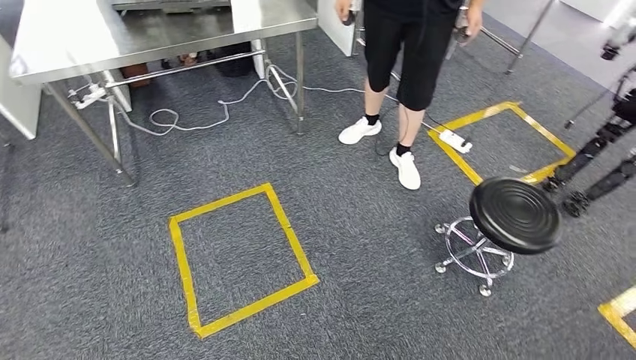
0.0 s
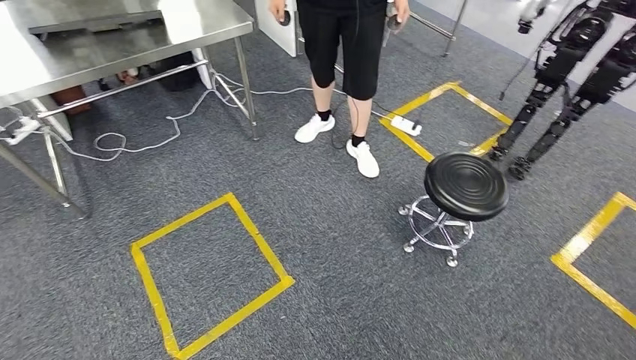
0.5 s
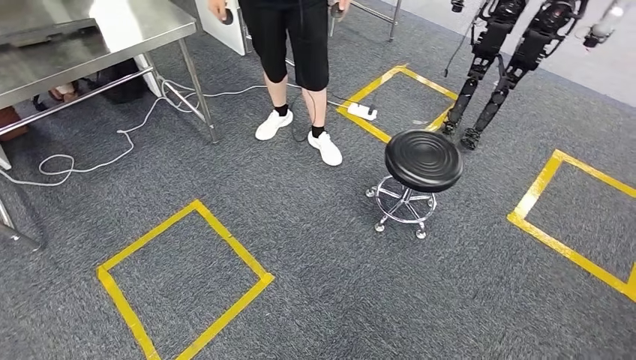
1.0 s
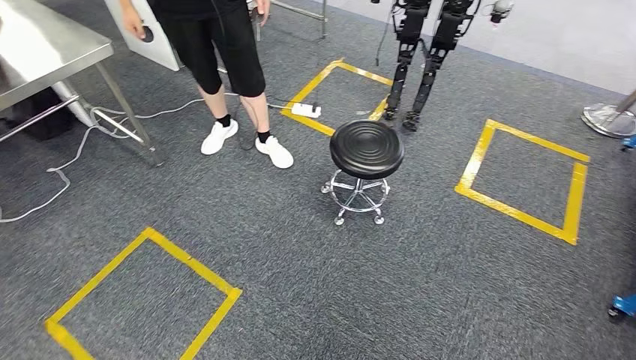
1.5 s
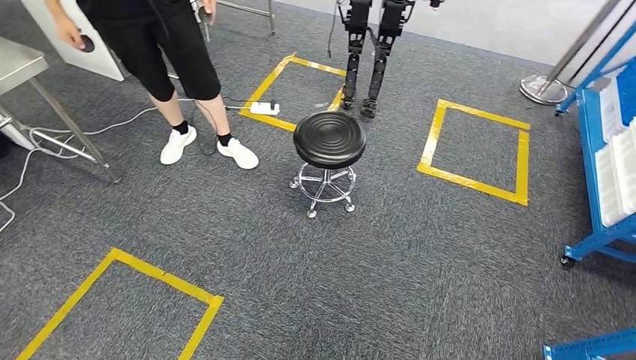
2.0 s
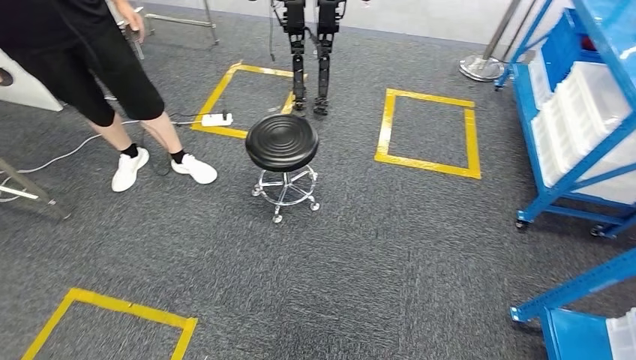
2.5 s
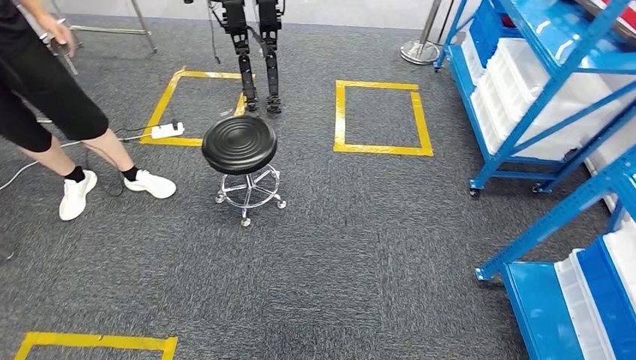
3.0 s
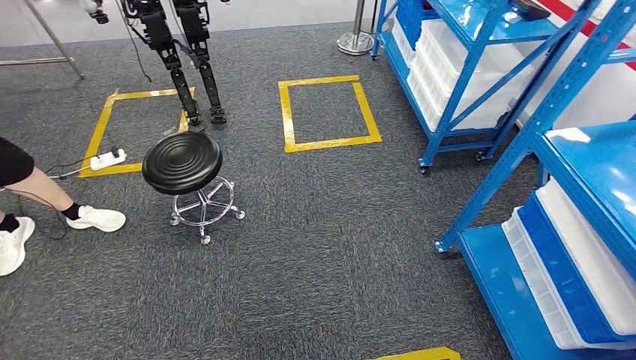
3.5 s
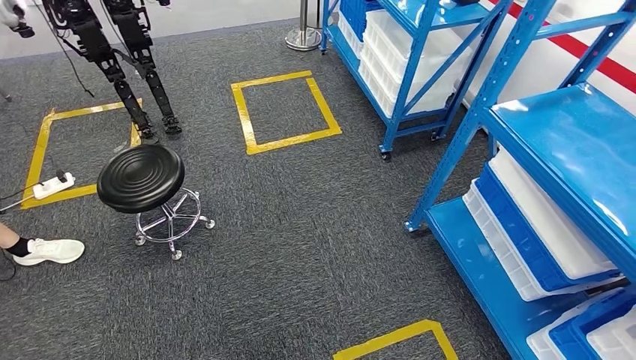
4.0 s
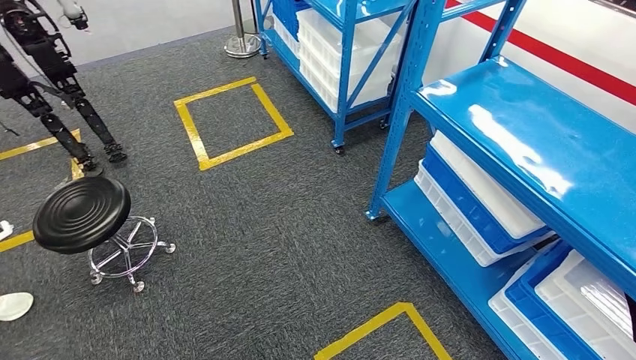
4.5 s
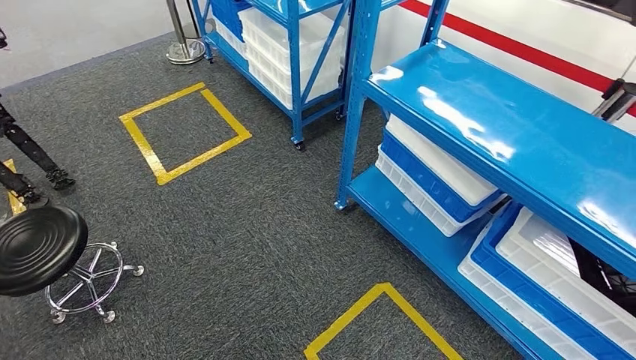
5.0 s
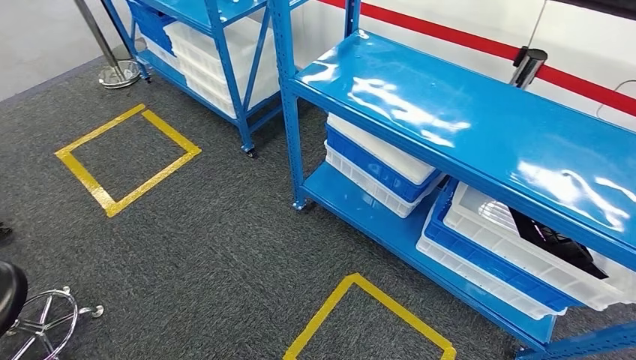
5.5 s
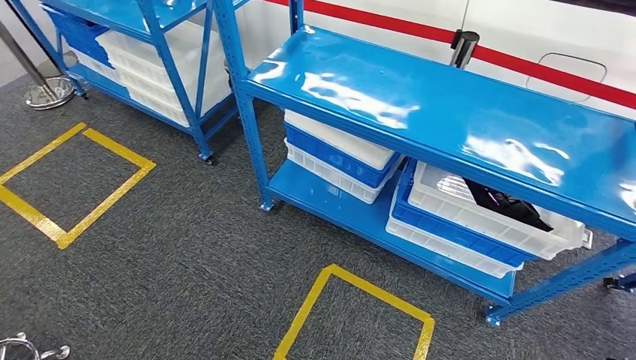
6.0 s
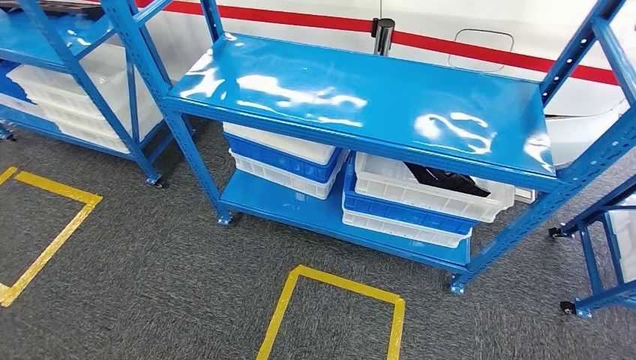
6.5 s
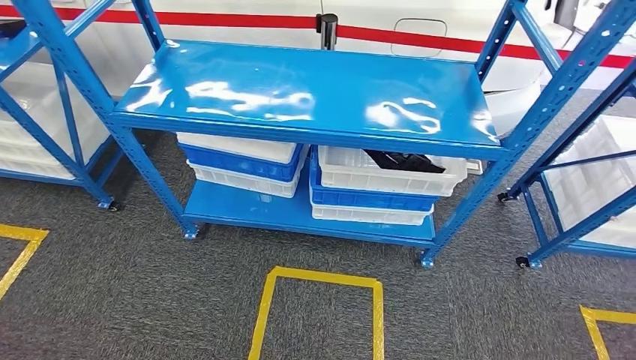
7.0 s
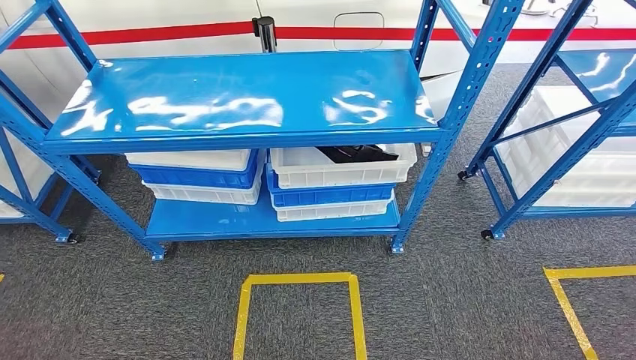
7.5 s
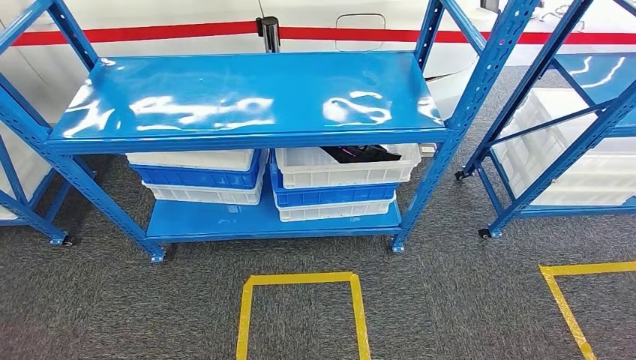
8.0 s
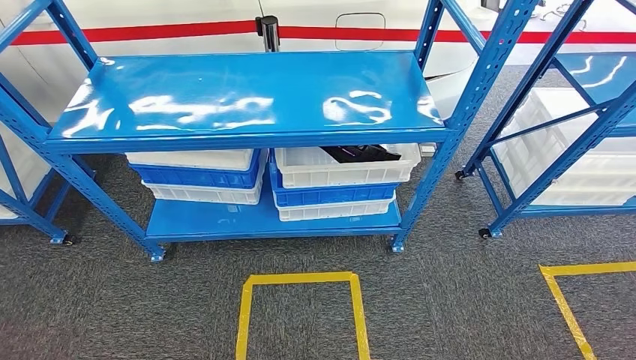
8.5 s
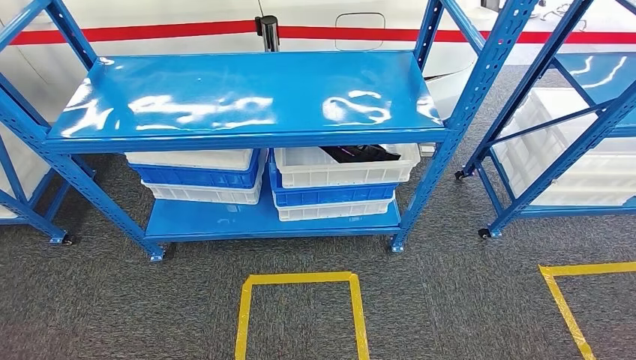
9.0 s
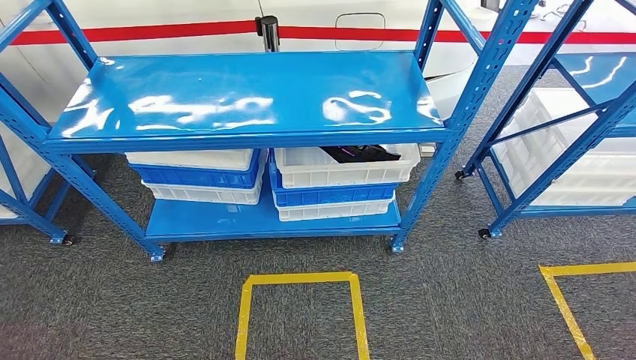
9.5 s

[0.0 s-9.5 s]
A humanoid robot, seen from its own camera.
Step, 0.0 to 9.5 s: Return to the initial position at the shelf.
7.5 to 9.5 s: The hands stay close to where they were, moving slightly.
